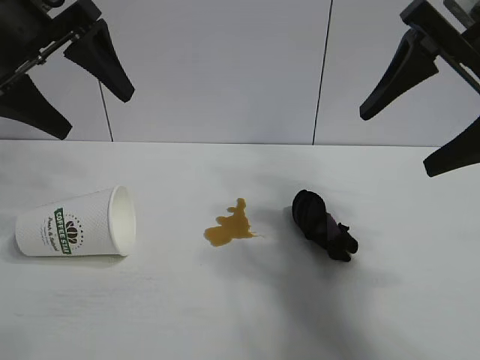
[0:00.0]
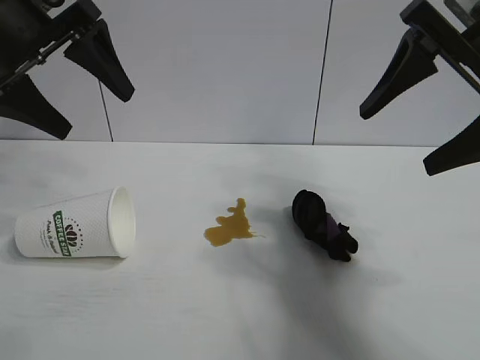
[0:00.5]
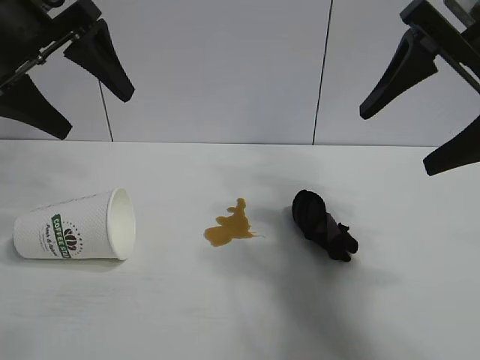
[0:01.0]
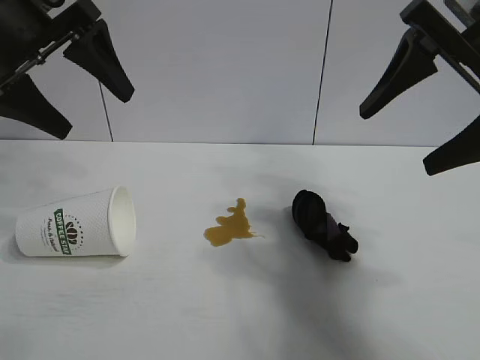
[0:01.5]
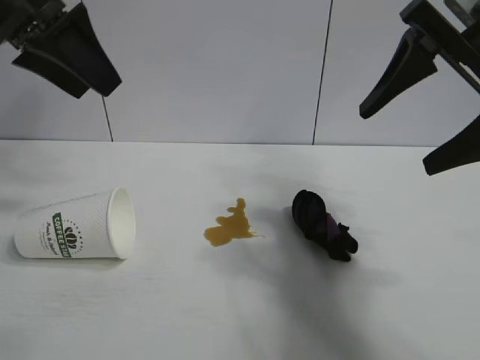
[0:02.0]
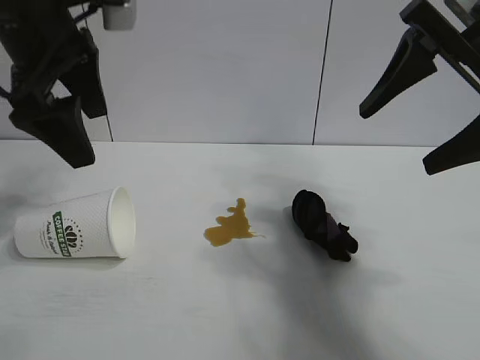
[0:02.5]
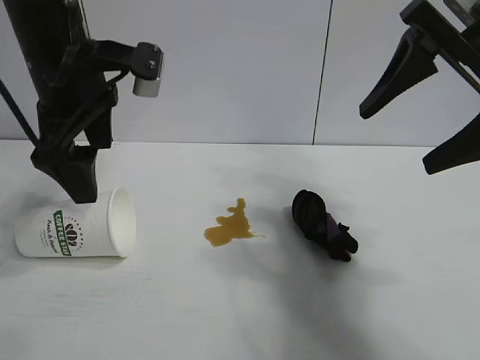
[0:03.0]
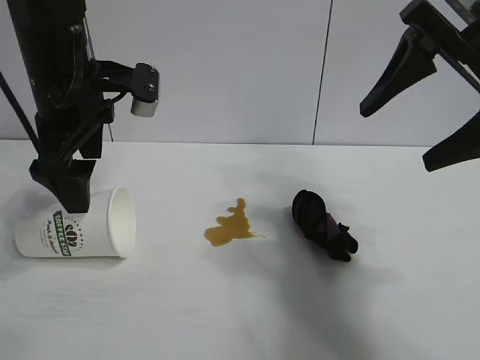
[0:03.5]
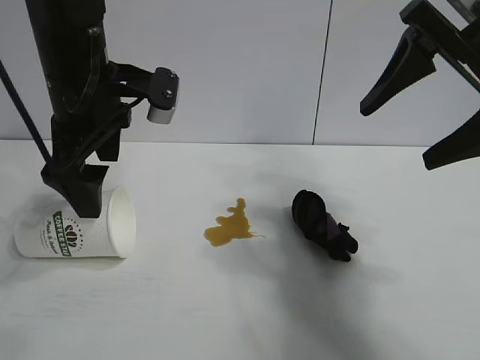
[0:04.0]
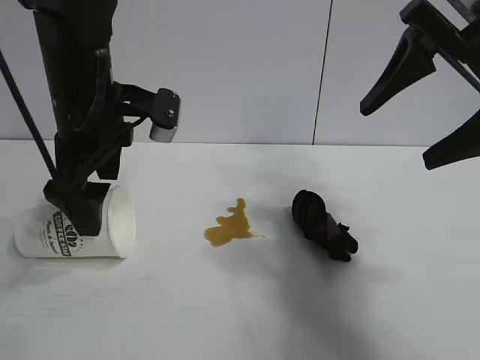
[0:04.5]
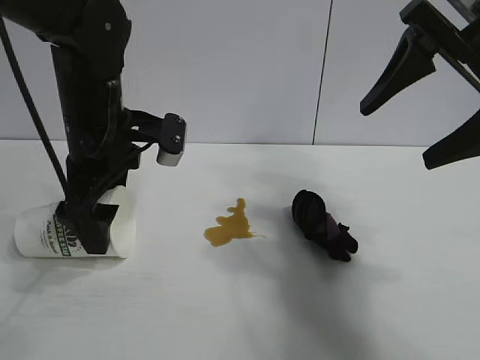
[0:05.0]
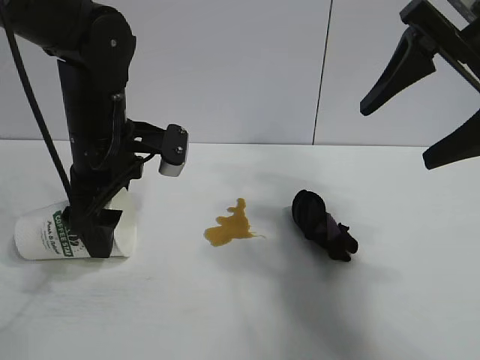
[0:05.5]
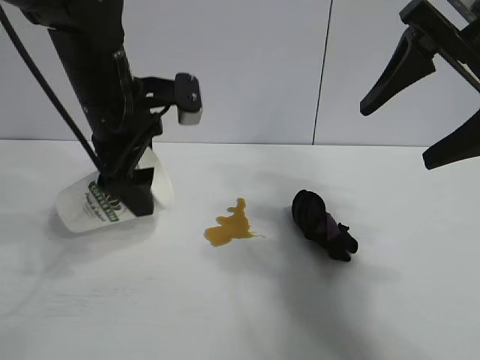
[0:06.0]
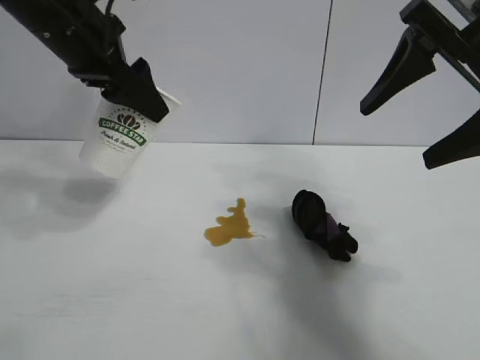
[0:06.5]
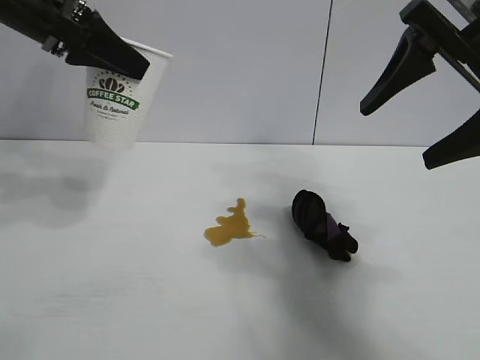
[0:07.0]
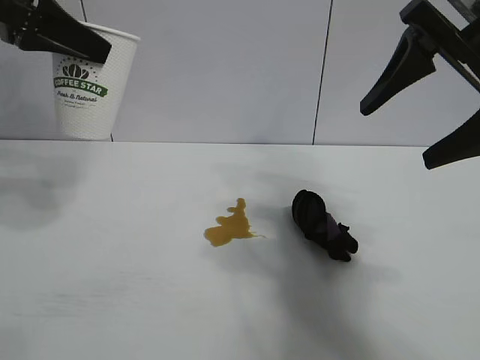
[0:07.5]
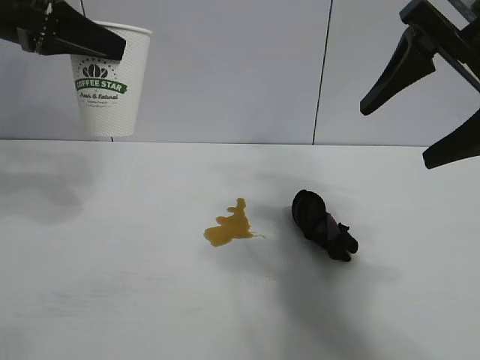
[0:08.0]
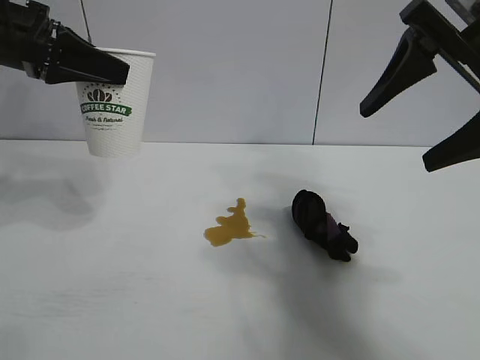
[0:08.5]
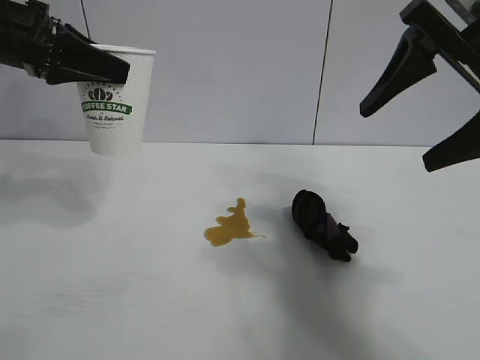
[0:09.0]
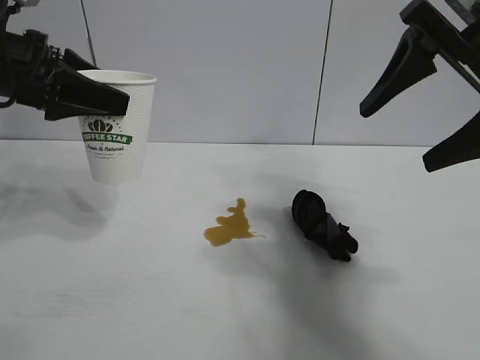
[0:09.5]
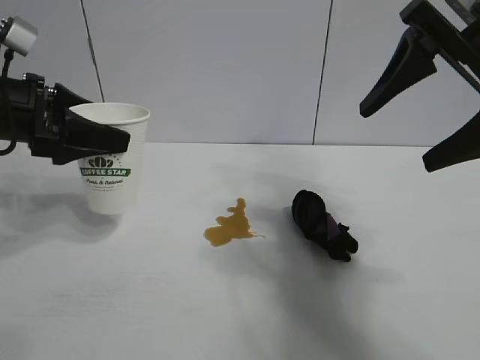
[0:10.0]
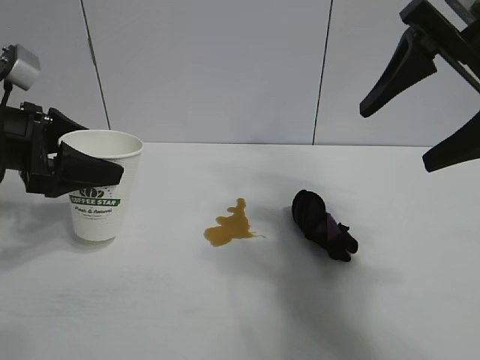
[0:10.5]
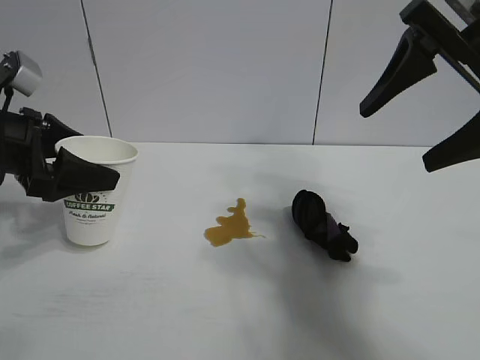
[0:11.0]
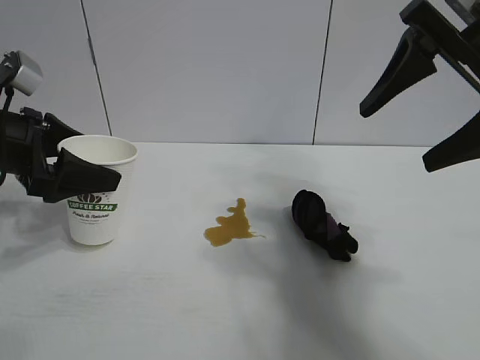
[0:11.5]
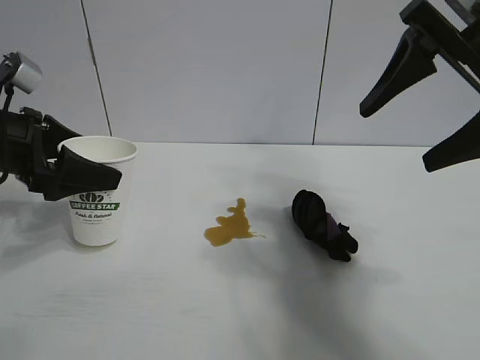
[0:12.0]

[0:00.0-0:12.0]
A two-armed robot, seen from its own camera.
Task of the whole recording: the left gripper pick up the fallen cup and place it upright, the right gripper grasp the black rag and wipe the stain on the table, the right gripper put the black rag back in its original position.
Step, 0:02.0 to 0:05.5: Grasp the paper cup with left gripper.

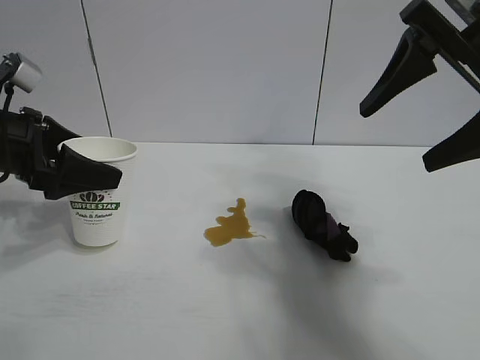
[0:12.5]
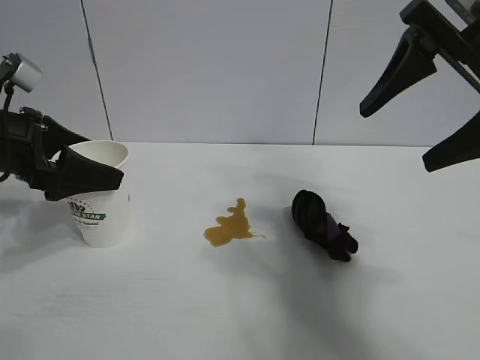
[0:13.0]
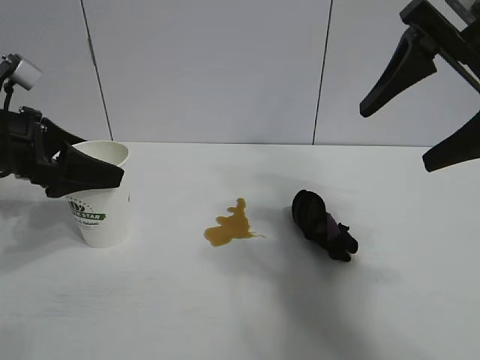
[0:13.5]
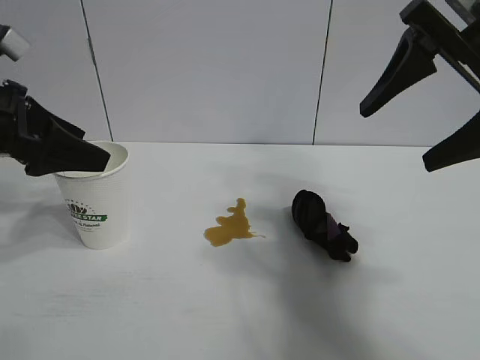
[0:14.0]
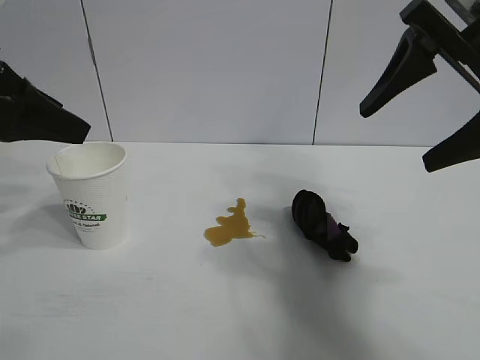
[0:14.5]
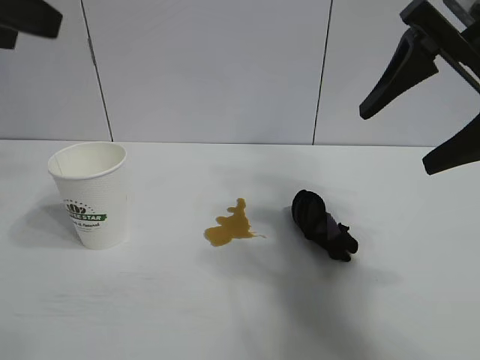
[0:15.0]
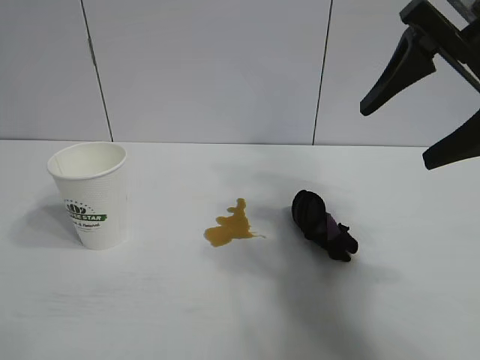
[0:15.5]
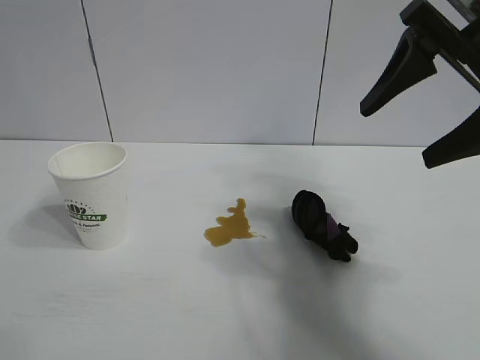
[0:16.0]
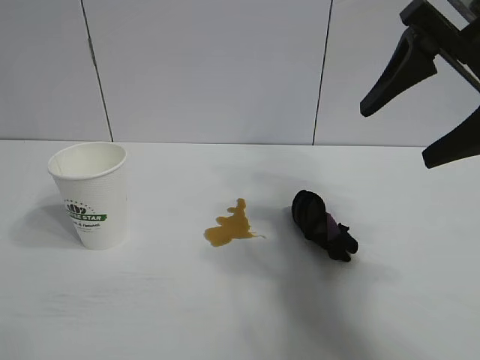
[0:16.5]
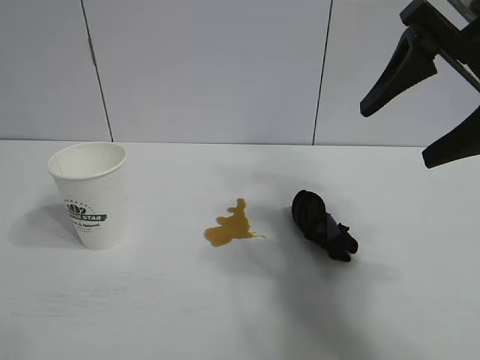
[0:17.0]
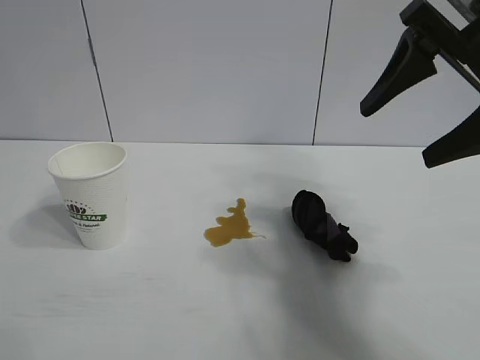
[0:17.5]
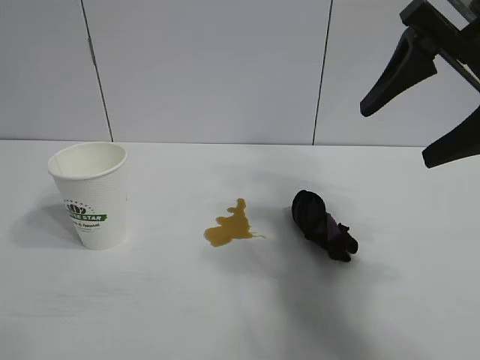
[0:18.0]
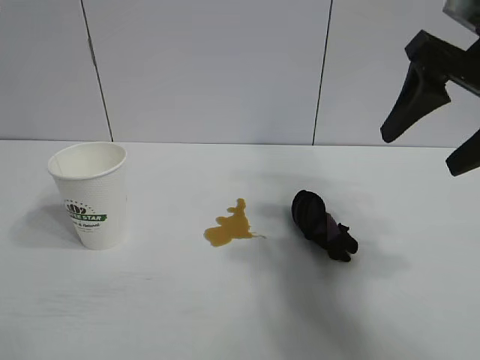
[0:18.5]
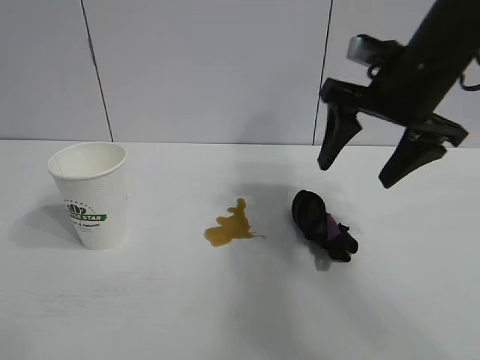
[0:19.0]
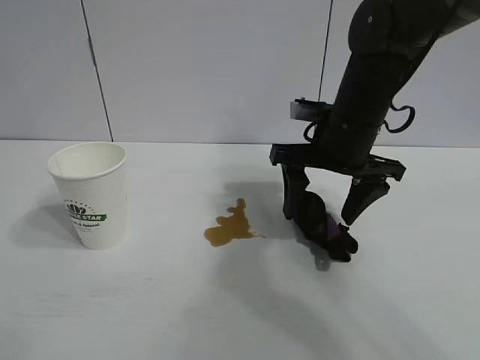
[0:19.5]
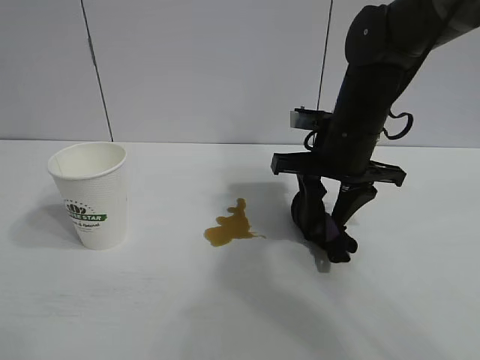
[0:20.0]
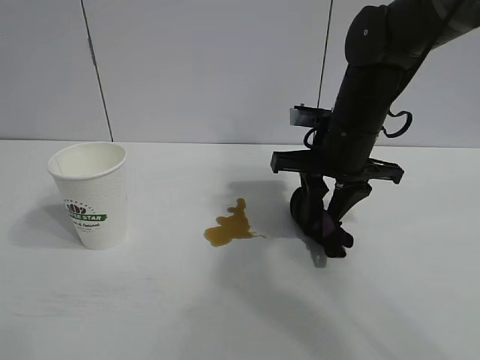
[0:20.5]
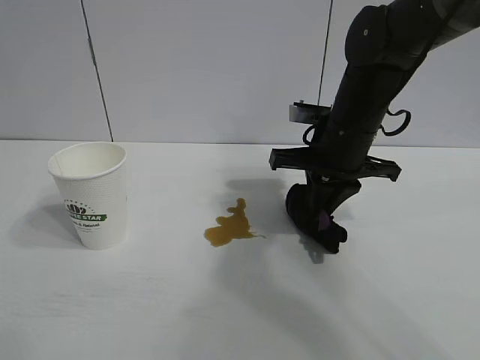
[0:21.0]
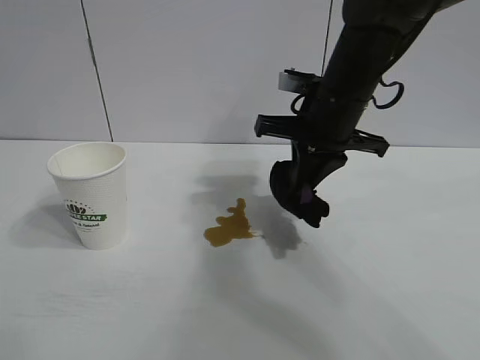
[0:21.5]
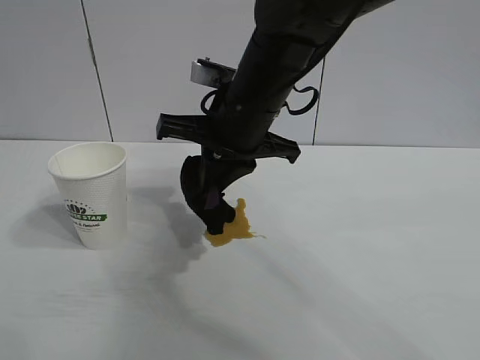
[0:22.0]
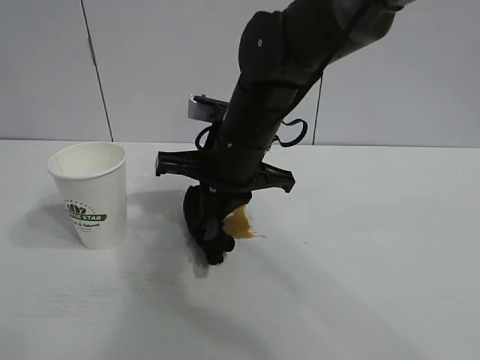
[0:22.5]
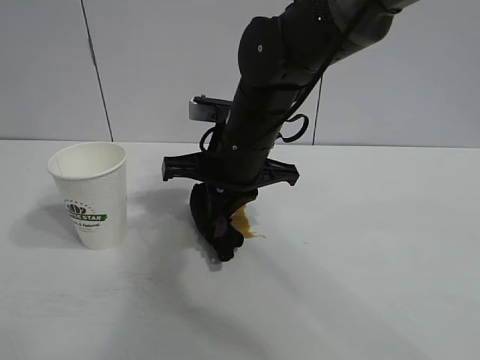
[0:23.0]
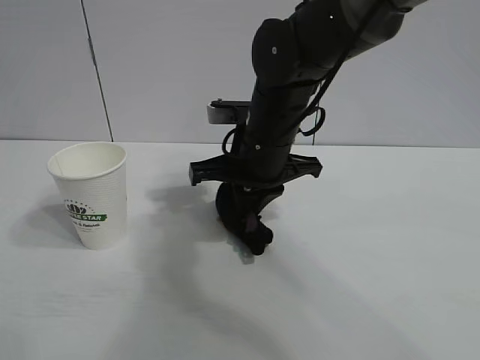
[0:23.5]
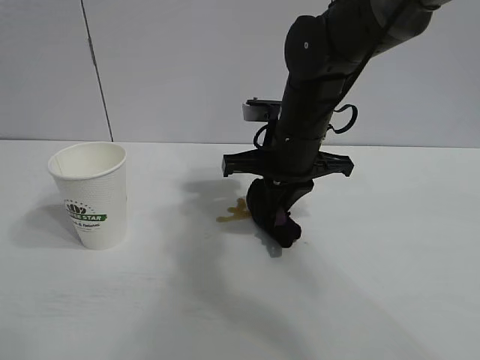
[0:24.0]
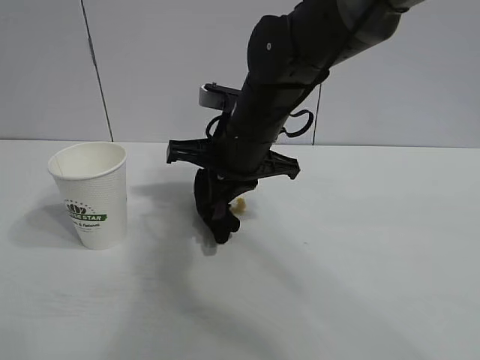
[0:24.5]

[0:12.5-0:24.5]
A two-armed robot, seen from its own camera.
Task of the whole recording: the left gripper pick up the fallen cup and place it upright, the right gripper grasp the black rag and wipe the stain on the table, the right gripper put the black rag back in its original position.
Step, 0:13.5 to 0:20.0: Grasp the rag with right gripper.

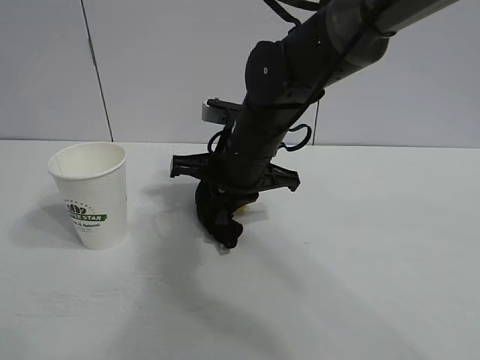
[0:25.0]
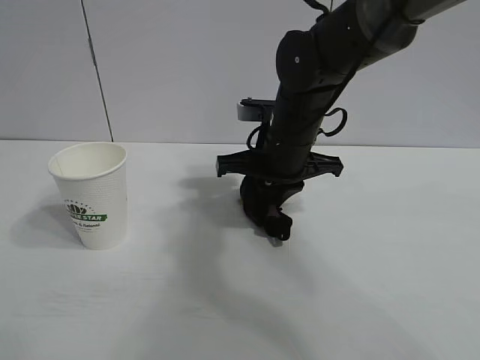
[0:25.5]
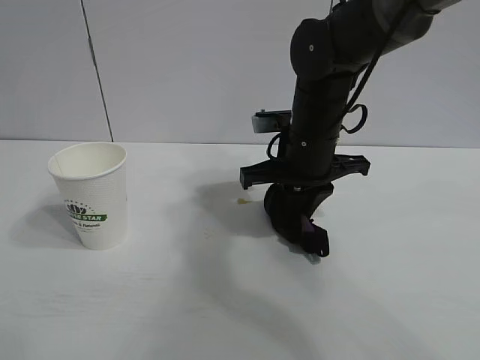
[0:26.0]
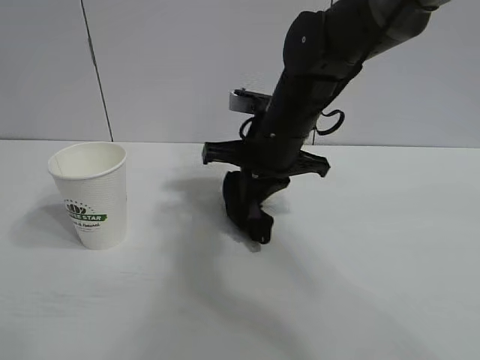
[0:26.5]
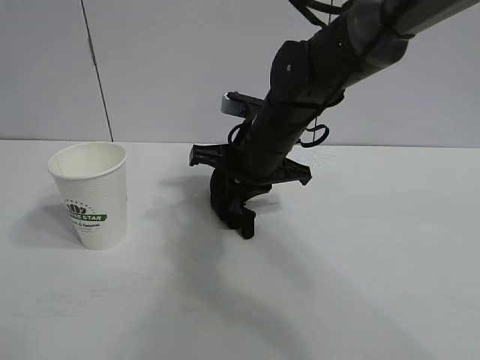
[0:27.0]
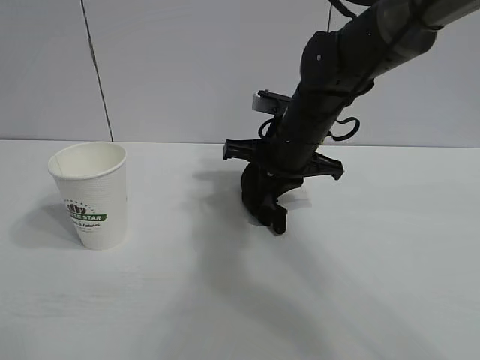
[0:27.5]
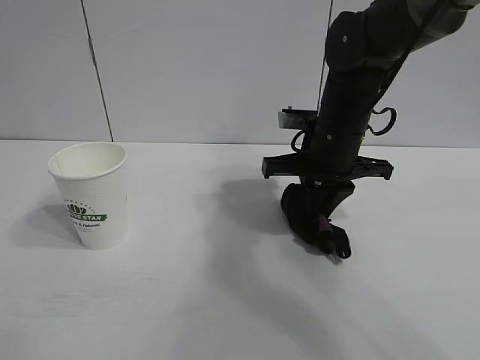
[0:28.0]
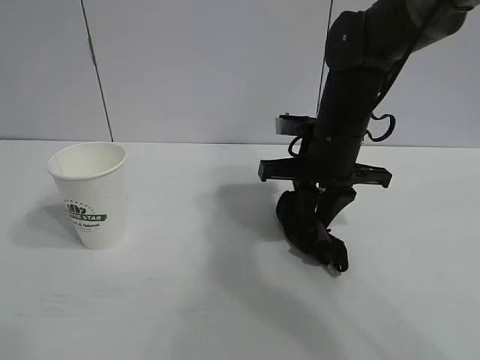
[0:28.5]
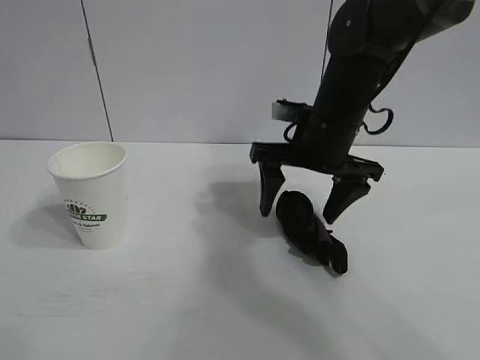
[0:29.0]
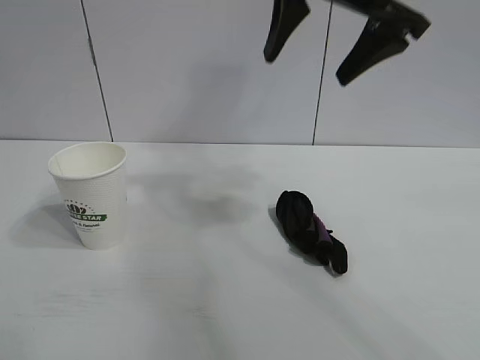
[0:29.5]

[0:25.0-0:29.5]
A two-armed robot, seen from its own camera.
Task of the whole recording: the left gripper pick up the fallen cup and place it upright, the right gripper grasp the black rag and wipe the stain on the table, the right gripper put the black rag back in its original position.
Step, 0:25.0 to 0:27.5: Wipe the stains off the table with the rag with right gripper.
Step, 0:28.0 to 0:28.5: Place the rag on the table with right gripper.
